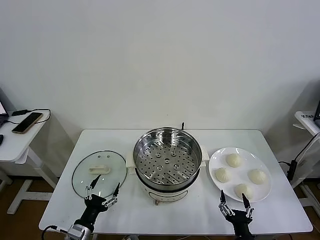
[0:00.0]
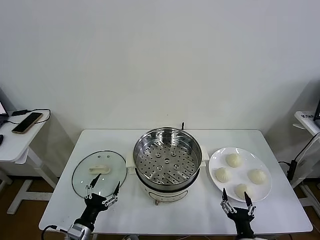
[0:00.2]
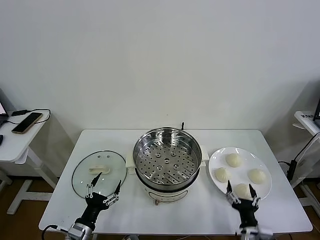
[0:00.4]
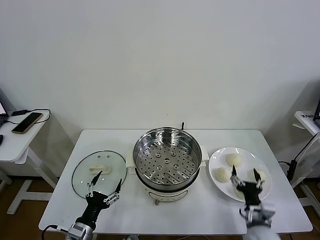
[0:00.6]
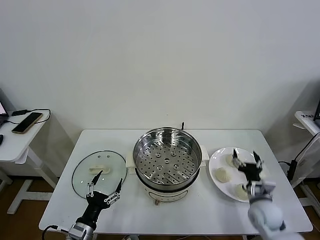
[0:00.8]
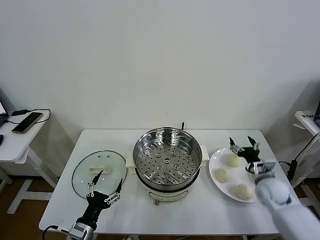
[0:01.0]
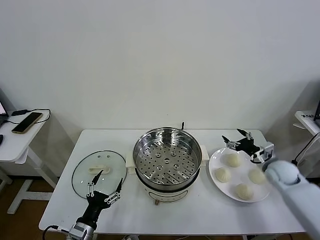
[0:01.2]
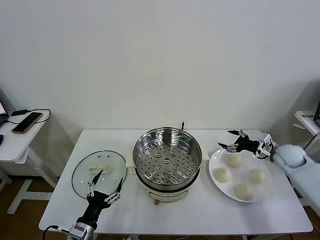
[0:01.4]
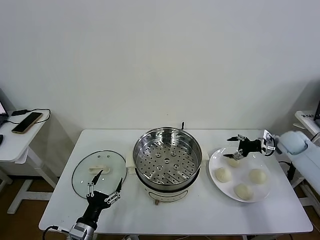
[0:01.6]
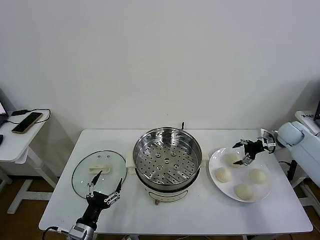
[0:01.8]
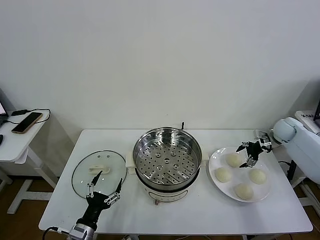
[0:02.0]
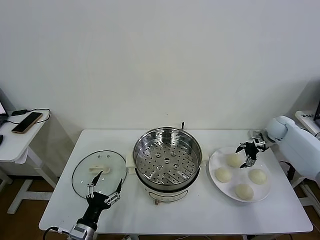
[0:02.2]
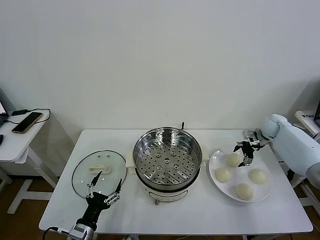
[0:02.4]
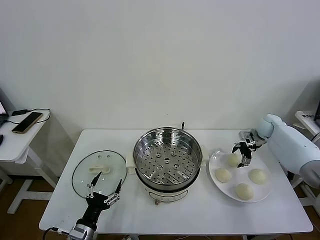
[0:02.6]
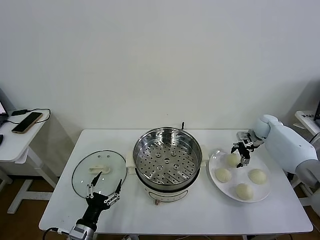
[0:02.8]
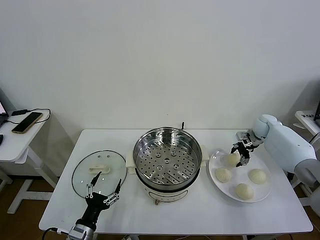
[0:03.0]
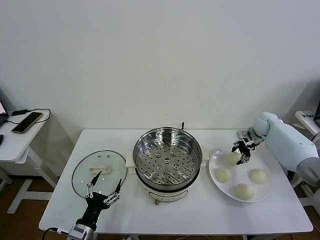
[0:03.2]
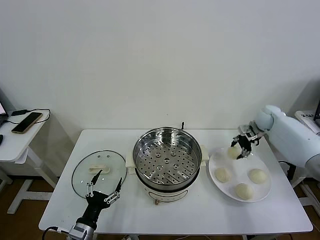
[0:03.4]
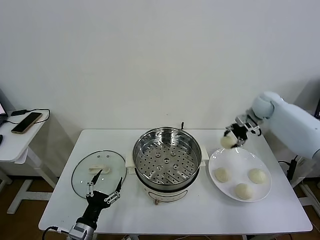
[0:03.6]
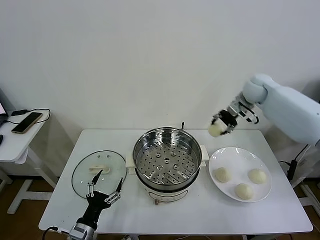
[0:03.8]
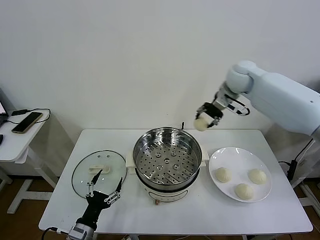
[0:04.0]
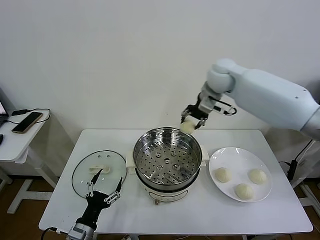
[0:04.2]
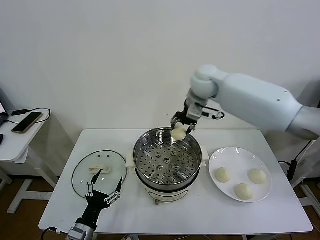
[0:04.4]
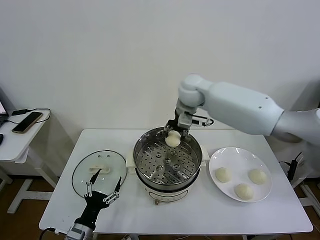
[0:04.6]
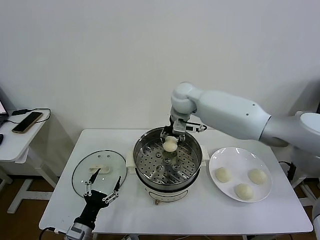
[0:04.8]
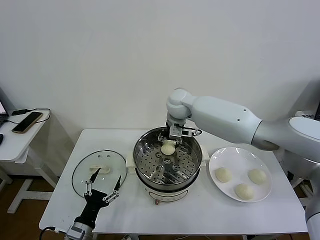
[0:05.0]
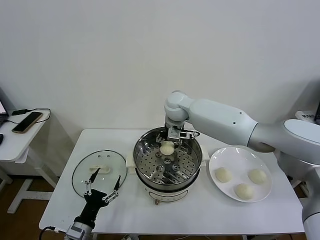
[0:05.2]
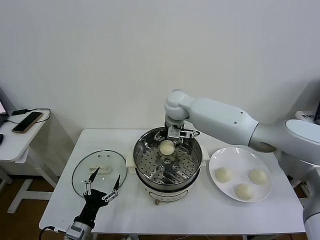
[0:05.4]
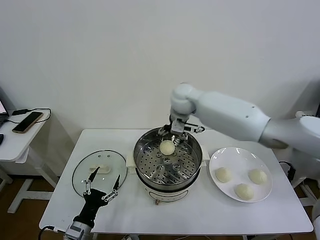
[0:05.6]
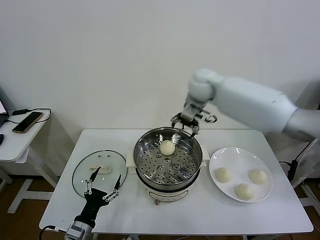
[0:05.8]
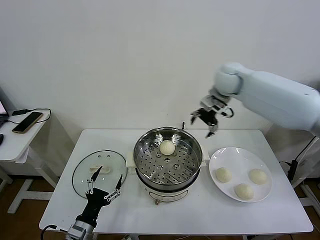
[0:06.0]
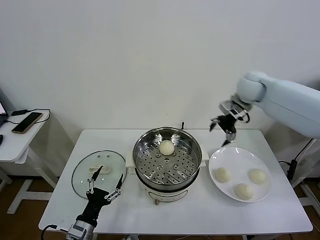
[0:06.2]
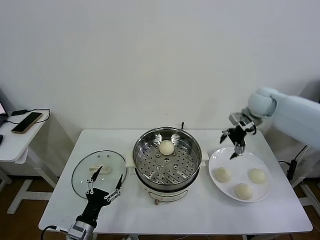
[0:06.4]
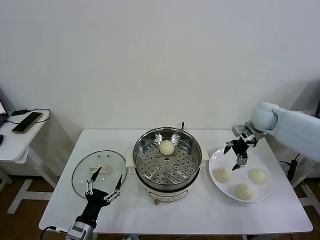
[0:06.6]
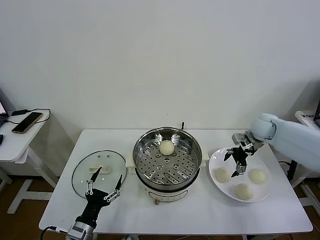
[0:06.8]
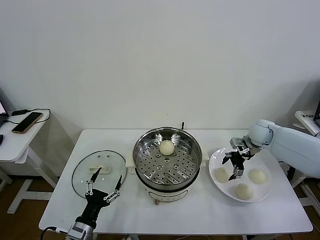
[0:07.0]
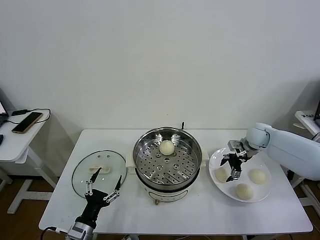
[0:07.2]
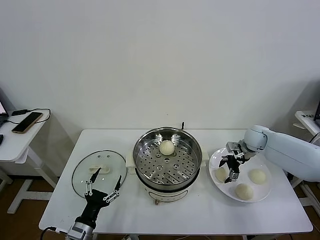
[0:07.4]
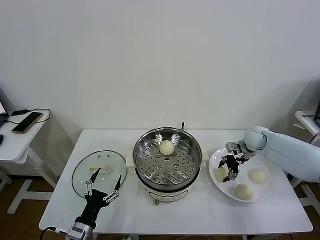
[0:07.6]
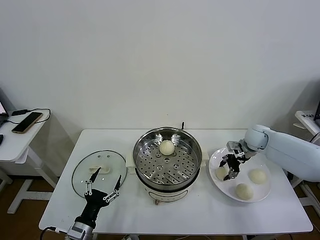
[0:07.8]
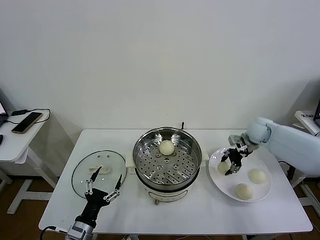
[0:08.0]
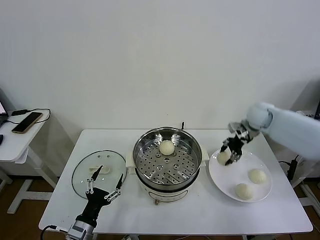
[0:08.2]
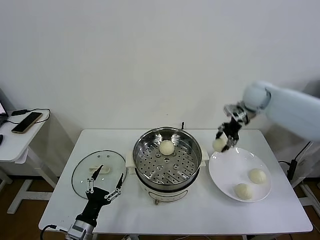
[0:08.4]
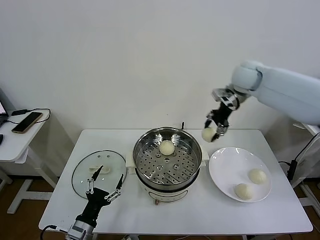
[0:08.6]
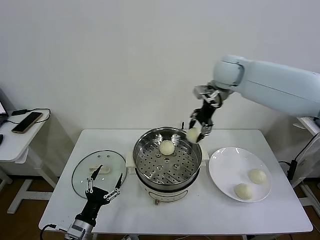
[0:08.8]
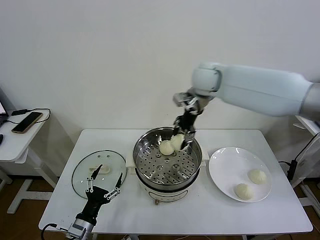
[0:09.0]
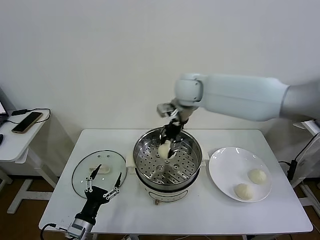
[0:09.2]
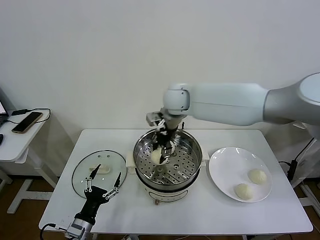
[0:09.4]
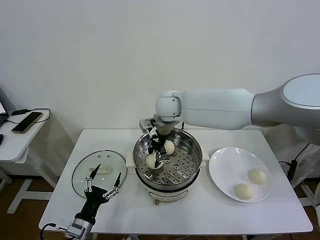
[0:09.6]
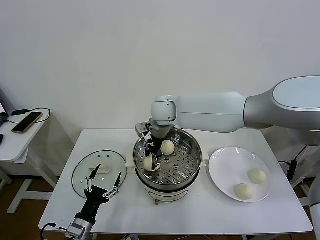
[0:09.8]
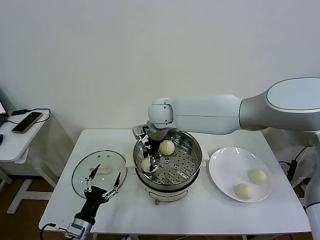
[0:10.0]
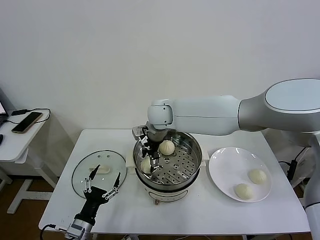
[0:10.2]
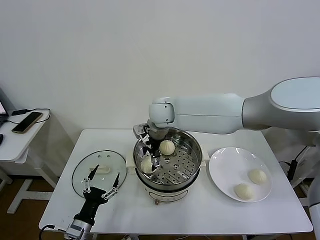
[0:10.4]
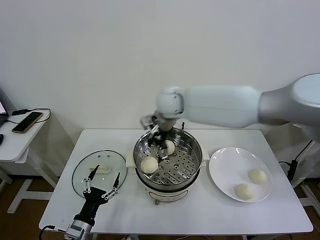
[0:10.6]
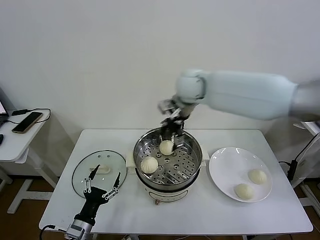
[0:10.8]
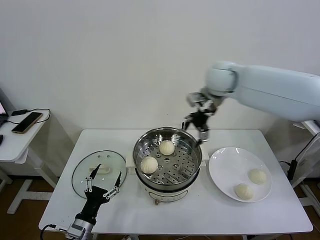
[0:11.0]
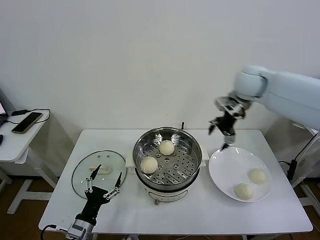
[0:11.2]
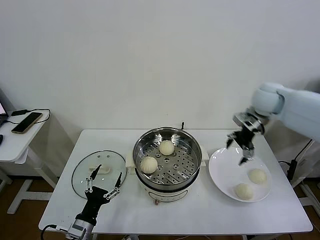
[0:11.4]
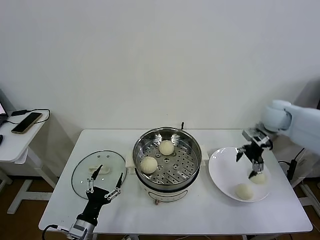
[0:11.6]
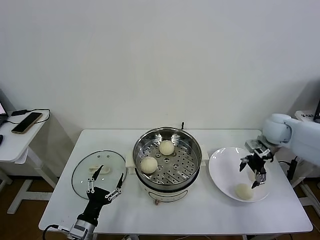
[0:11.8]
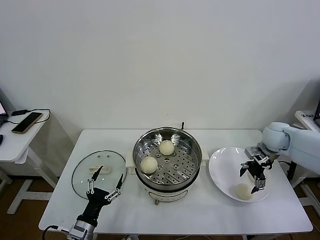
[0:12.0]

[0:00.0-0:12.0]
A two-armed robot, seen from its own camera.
Task of the whole recording: take steamed baozi put them in steamer then cover it.
Step, 0:00.0 to 0:03.0: Grasp the baozi in the plate with right gripper.
Step, 0:03.2 to 0:05.4: Place the baozi on the steamer with right gripper.
Step, 0:05.6 to 0:07.6: Grasp the baozi in the plate with right gripper.
Step, 0:07.8 to 0:10.2: Place the baozi on the steamer with right gripper.
0:01.6 to 0:03.0: The right gripper shifts about 10 cm forward and to the left, and closes its fingers.
0:03.0 to 0:04.4: The right gripper goes about 40 cm to the left and upward, and closes its fingers.
0:04.4 to 0:06.0: The right gripper travels to the right by about 15 cm, and opens its fingers.
0:06.0 to 0:07.6: The right gripper moves downward and to the right, approximately 25 cm, and closes its fingers.
0:07.6 to 0:09.0: The right gripper goes roughly 35 cm to the left and upward, and closes its fingers.
0:09.0 to 0:10.4: The right gripper moves to the left and downward, some 10 cm, and opens up.
0:10.4 to 0:12.0: The right gripper heads to the right, covering about 40 cm.

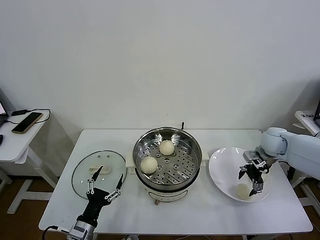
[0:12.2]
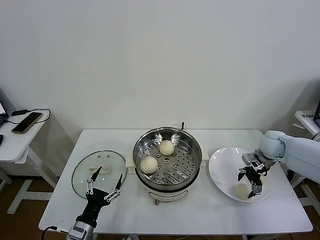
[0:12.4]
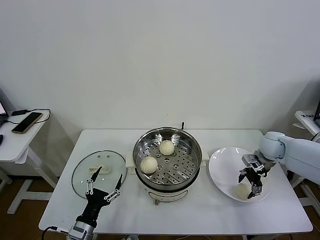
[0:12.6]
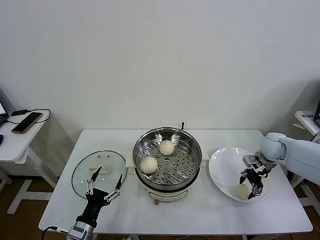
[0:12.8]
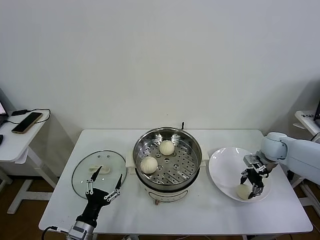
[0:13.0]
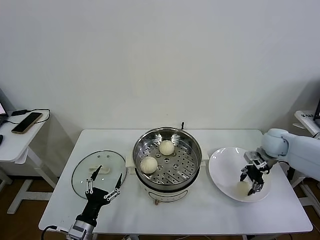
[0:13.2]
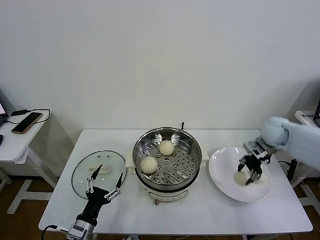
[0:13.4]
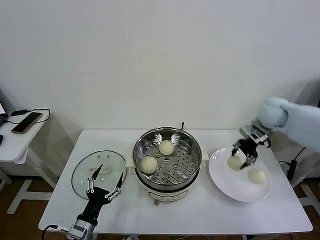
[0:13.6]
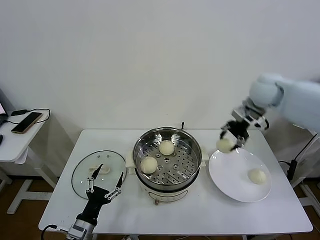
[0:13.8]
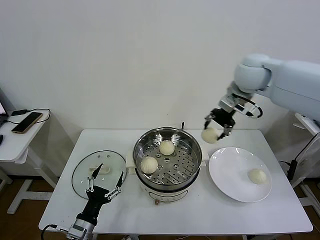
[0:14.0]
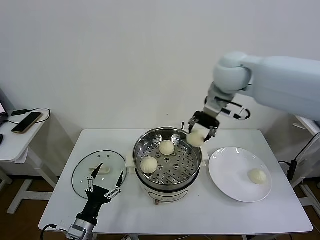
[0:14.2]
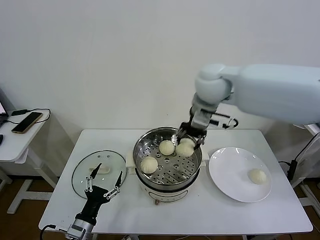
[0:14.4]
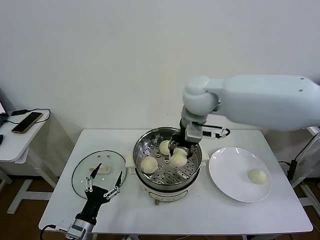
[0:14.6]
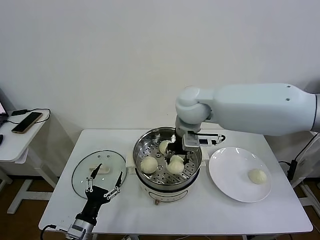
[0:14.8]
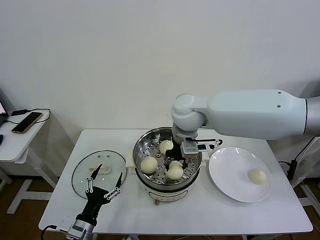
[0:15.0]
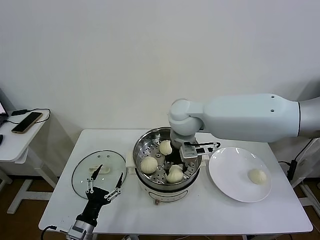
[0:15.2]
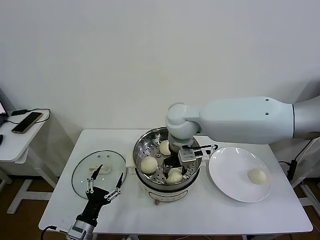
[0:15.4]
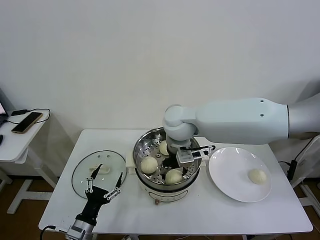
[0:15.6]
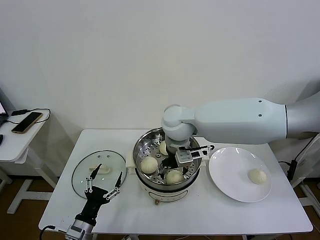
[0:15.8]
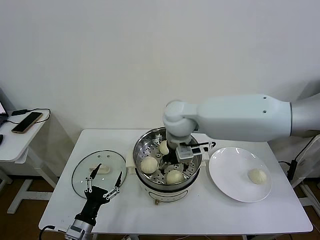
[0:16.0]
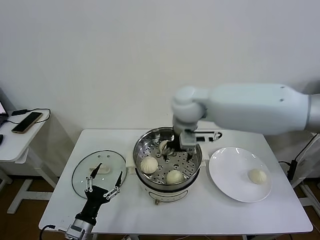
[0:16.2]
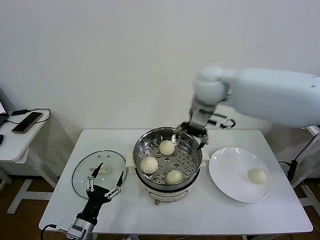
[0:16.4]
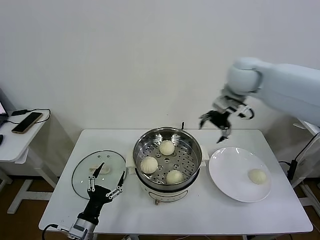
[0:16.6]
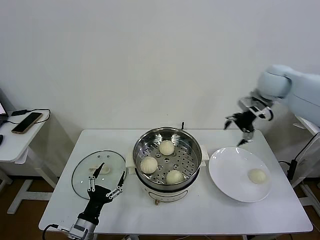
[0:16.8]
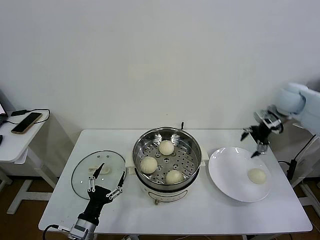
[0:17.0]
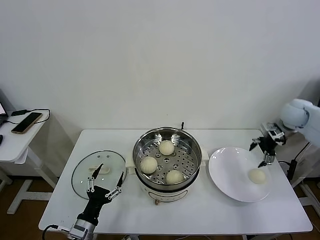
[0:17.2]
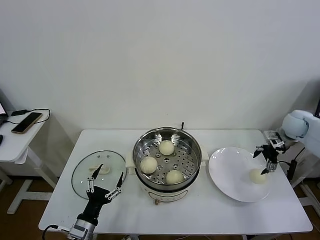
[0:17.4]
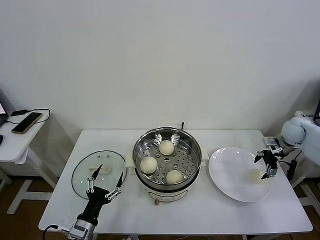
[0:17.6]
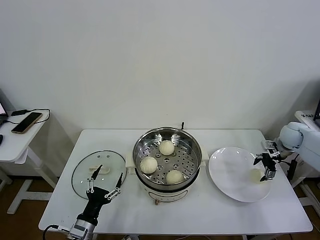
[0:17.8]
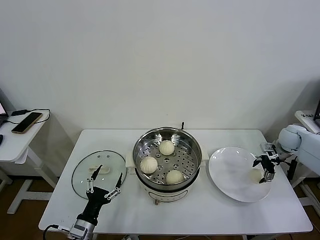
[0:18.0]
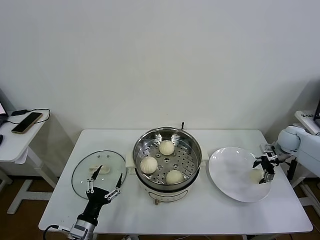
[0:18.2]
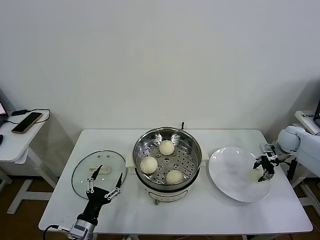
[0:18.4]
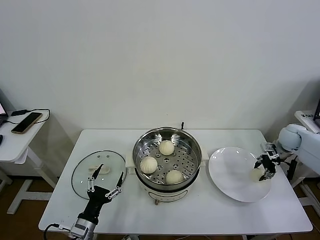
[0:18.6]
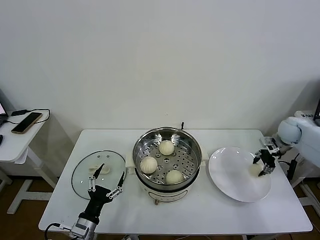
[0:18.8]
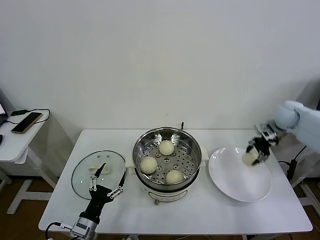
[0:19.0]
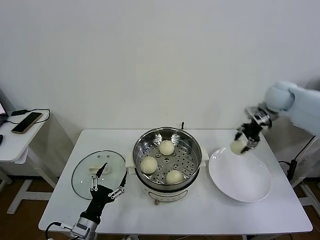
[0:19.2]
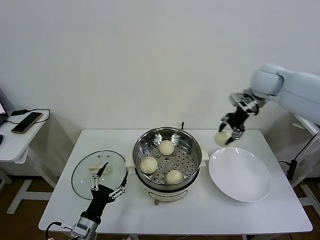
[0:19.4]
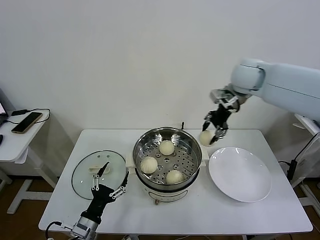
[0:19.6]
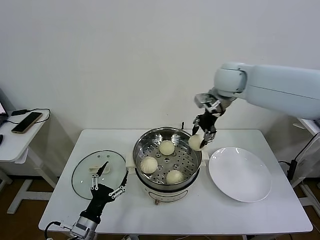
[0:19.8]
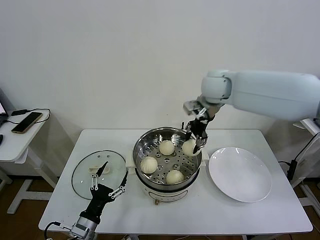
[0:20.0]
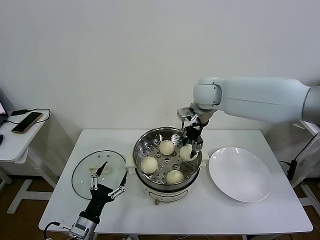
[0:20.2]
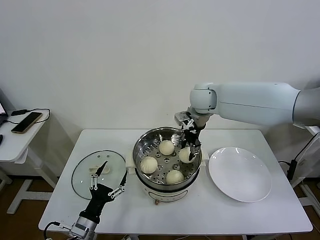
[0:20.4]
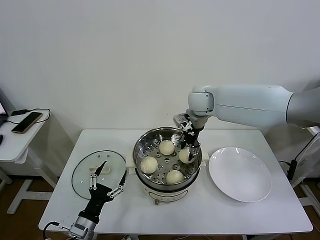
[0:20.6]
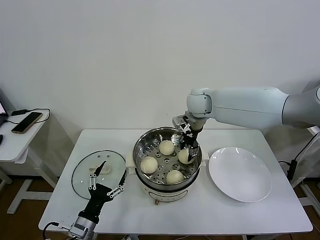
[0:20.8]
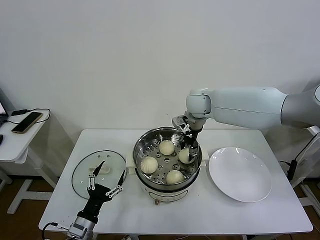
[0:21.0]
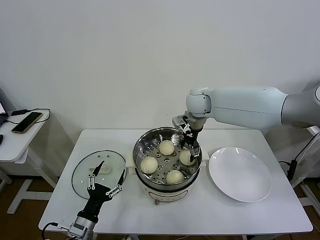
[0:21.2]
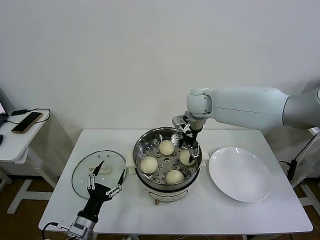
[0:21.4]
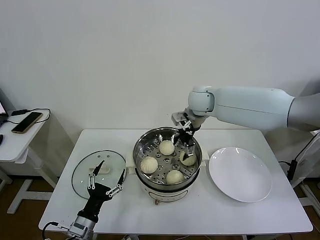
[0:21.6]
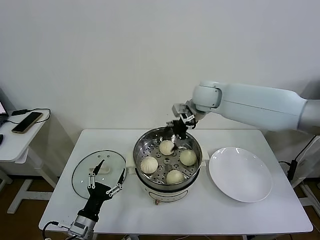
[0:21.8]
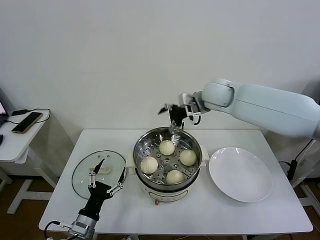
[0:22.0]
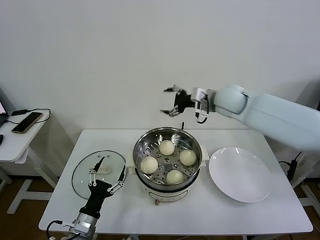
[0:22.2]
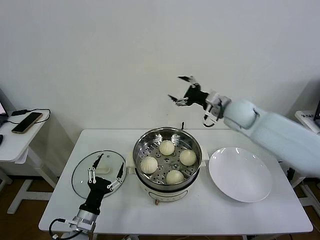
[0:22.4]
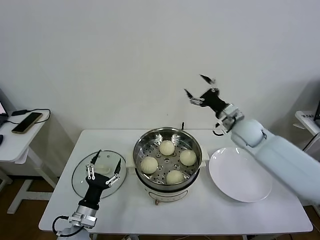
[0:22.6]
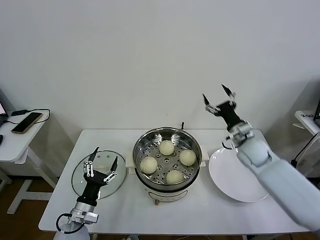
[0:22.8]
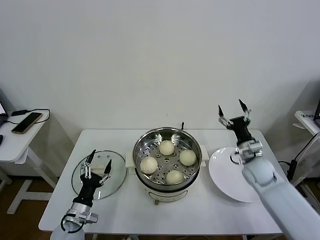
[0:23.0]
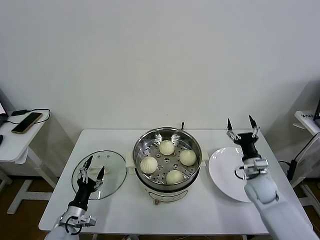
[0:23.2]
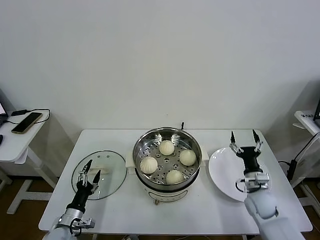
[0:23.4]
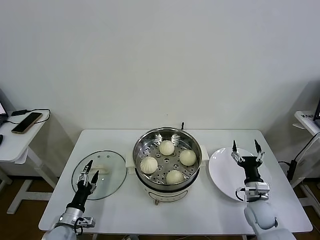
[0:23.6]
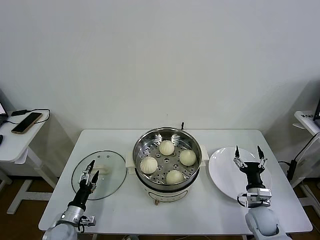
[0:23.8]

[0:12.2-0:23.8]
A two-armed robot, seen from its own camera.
Task of the whole recording: take steamed baozi put them in steamer then cover it.
Step, 0:13.0 to 0:15.4: Place the baozi on the steamer with right gripper.
Step, 0:15.8 to 0:18.6: Grasp the baozi in the plate with right gripper.
Step, 0:18.8 to 0:21.0: Place the baozi on the steamer with right gripper.
0:12.2 to 0:13.6: The right gripper moves upward, some 15 cm, and closes.
0:13.6 to 0:15.0: The right gripper moves to the left, approximately 30 cm.
0:15.0 to 0:16.6: The right gripper travels to the right and forward by roughly 20 cm, and opens up.
0:16.6 to 0:18.0: The right gripper goes some 35 cm downward and to the right.
0:18.0 to 0:19.4: The right gripper moves upward and to the left, roughly 30 cm, and closes.
0:19.4 to 0:21.0: The right gripper shifts about 20 cm to the left and downward.
0:21.0 to 0:22.4: The right gripper heads to the right and backward, covering roughly 15 cm, and opens its fingers.
0:22.4 to 0:23.8: The right gripper moves downward and backward, about 35 cm; the left gripper moves to the left and downward, about 10 cm.
